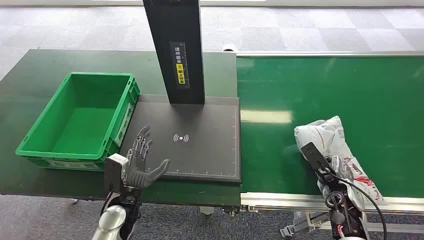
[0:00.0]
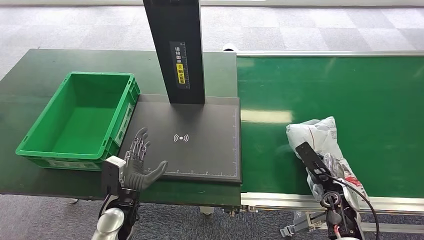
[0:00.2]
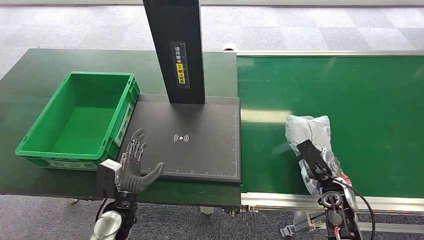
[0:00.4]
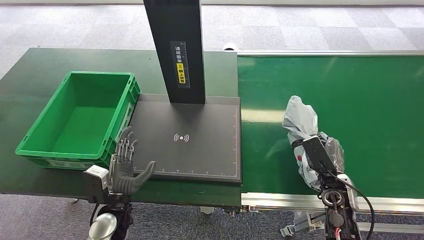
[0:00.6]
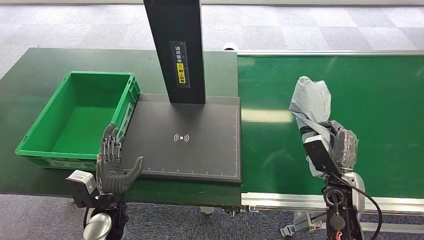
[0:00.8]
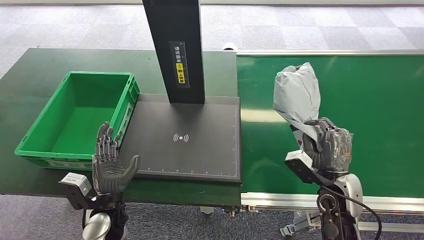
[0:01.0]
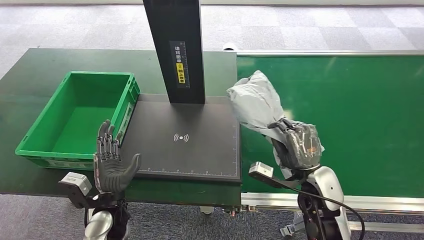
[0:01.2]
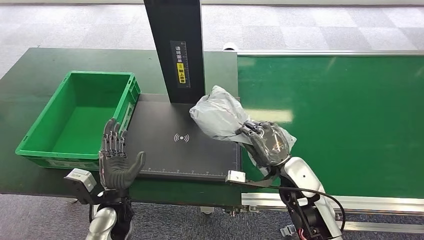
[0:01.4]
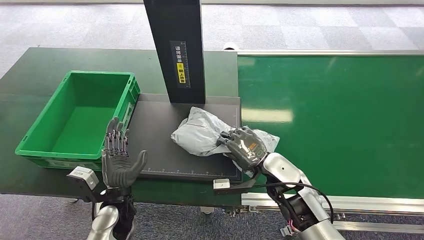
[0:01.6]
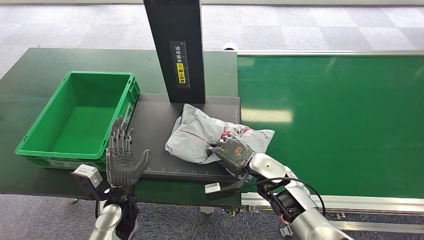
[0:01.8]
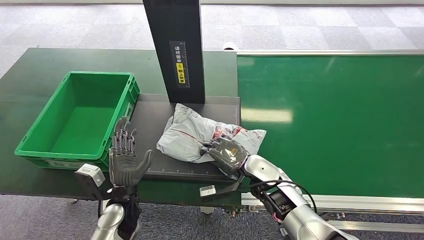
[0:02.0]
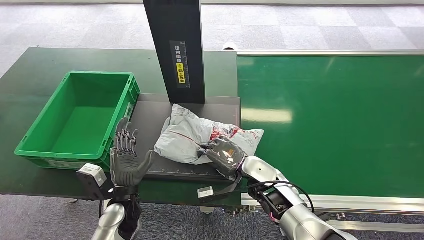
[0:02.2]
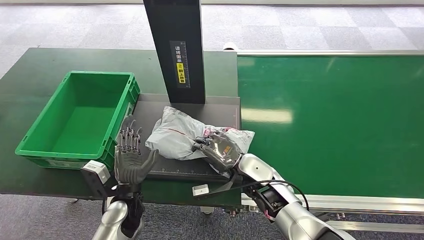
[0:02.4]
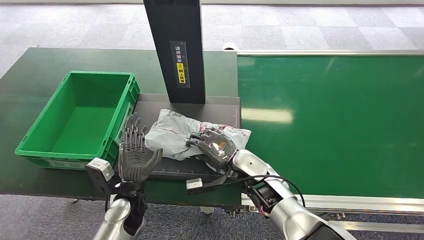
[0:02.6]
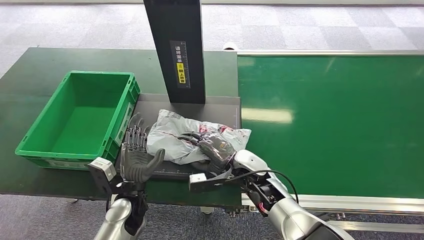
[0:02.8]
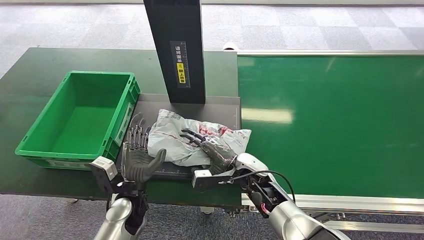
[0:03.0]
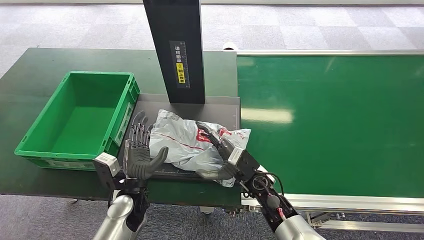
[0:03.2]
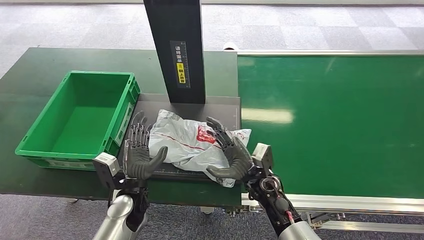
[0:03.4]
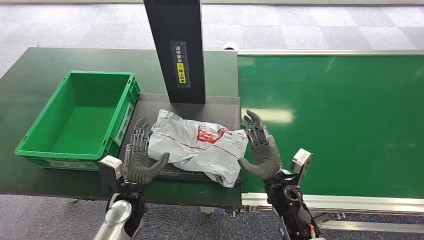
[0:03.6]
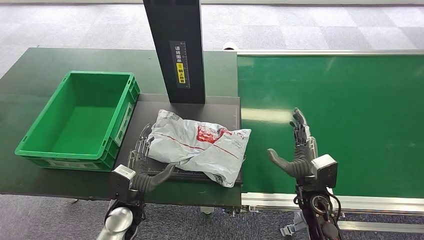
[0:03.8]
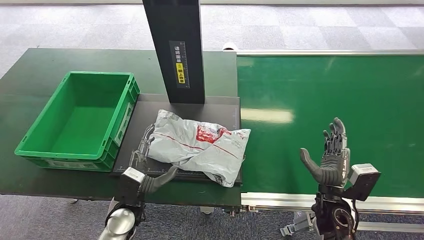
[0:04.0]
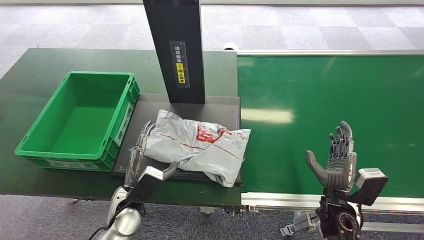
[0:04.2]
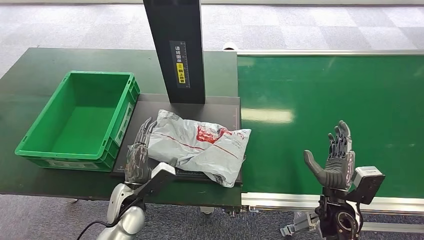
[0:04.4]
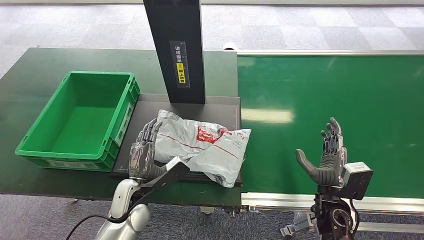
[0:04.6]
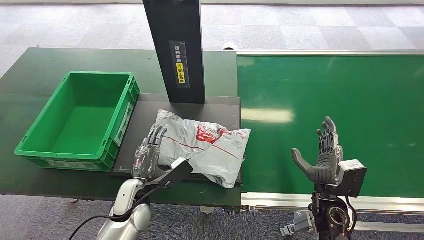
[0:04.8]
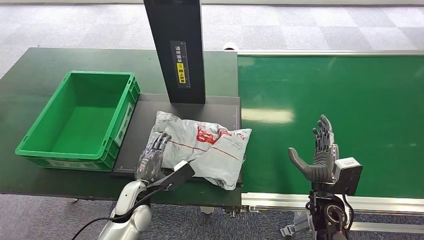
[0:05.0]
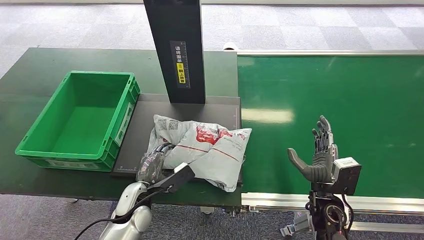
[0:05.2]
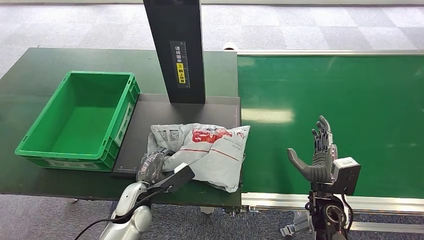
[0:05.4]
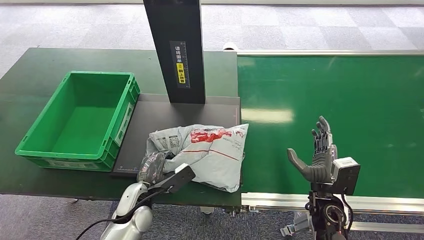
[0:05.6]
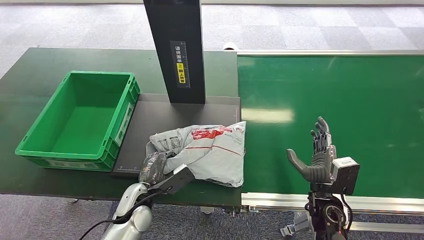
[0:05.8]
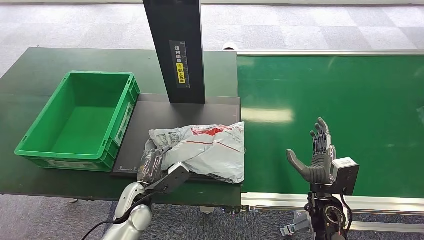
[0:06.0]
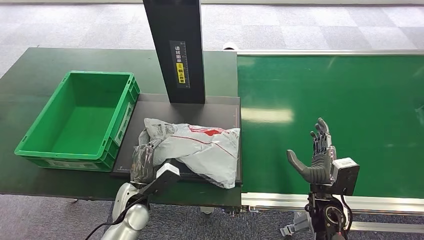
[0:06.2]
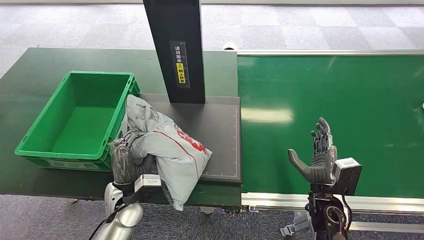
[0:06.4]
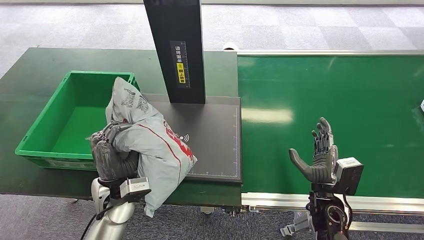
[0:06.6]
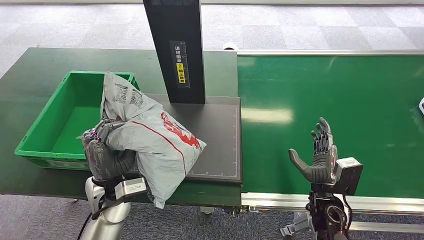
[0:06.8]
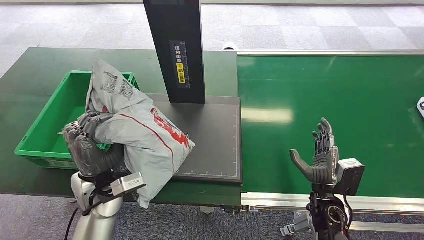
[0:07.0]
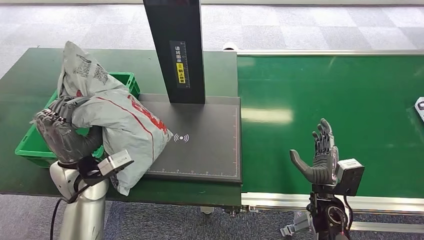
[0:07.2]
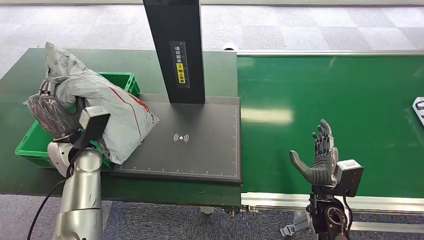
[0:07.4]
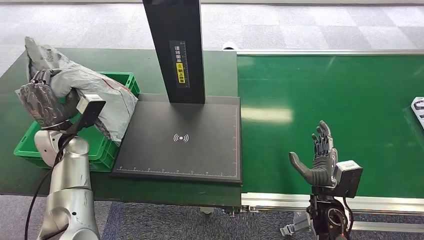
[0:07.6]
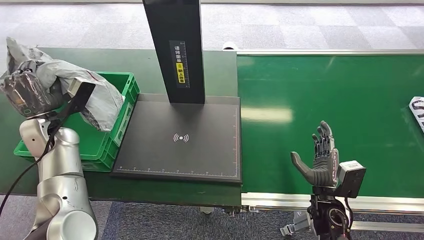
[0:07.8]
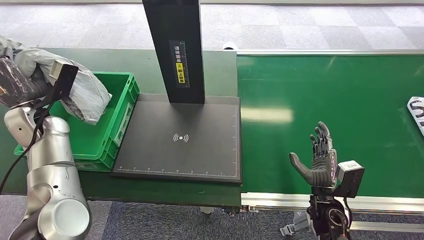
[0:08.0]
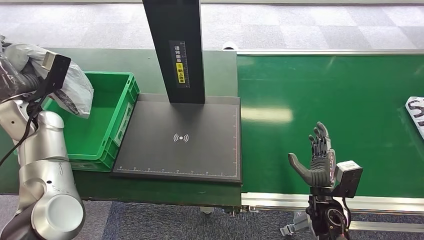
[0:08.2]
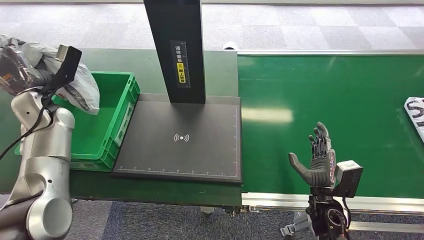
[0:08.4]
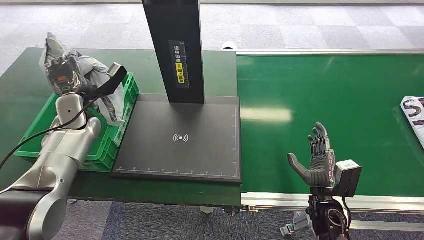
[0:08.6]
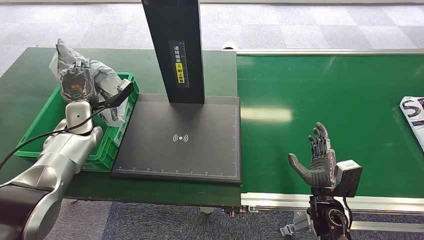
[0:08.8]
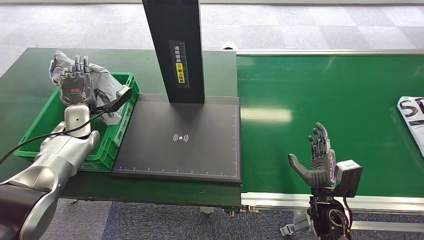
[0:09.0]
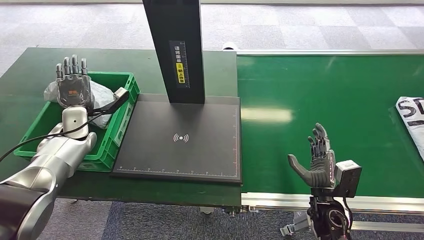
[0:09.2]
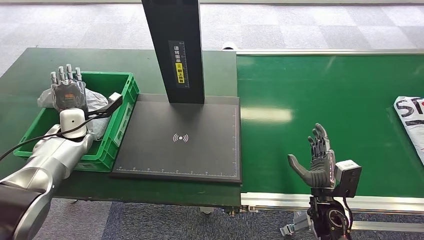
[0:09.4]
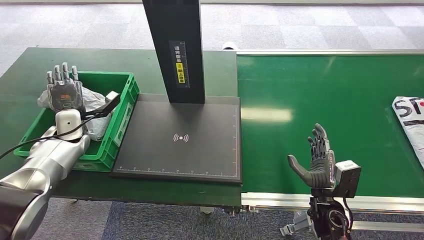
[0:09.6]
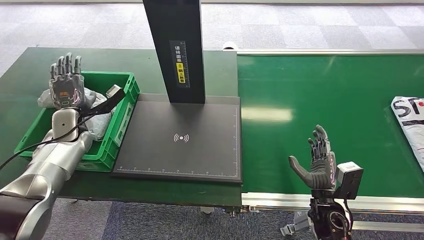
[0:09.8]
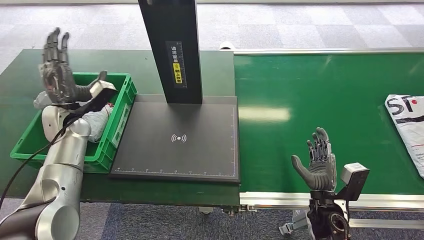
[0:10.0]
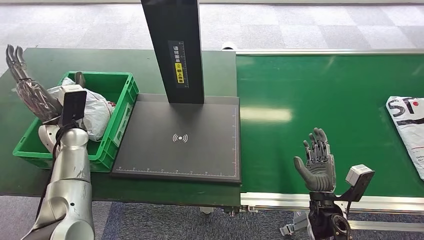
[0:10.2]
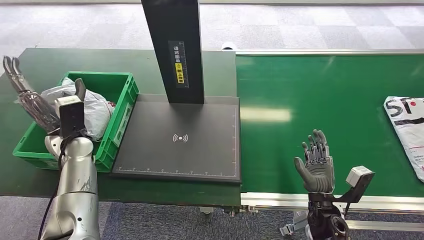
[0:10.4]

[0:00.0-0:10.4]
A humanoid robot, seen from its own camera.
Step, 0:00.0 to 0:01.0: Pick up the package from the conveyor belt.
Step, 0:01.2 to 0:03.6: Place the package onto the inbound machine.
Step, 0:03.8 to 0:06.8: Pick up the package from the inbound machine.
Step, 0:07.0 to 0:10.2: Place the package into the parcel locker.
0:01.4 to 0:03.0: The right hand travels to the left and downward by approximately 10 cm.
0:03.0 to 0:04.4: The right hand is displaced to the right and backward by approximately 20 cm.
0:06.0 to 0:07.4: The left hand heads upward, to the left and forward, covering approximately 20 cm.
0:07.4 to 0:09.0: The left hand heads forward and to the left, covering some 10 cm.
0:09.0 to 0:10.4: The left hand is displaced backward by some 5 cm.
